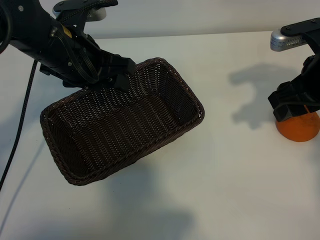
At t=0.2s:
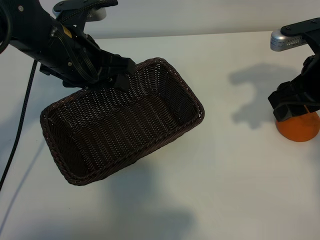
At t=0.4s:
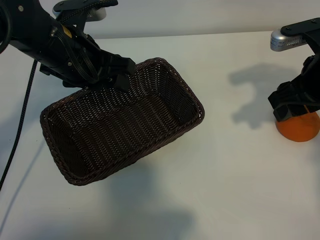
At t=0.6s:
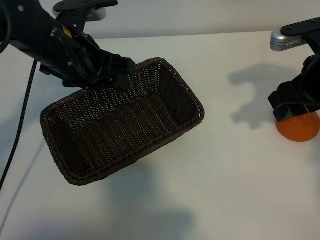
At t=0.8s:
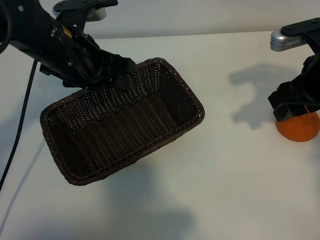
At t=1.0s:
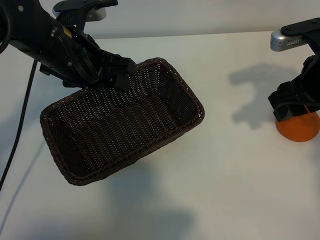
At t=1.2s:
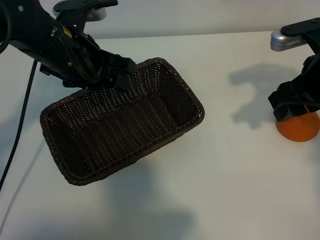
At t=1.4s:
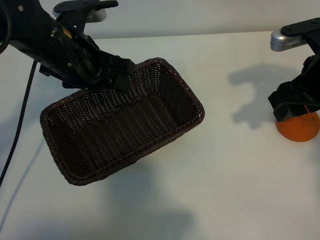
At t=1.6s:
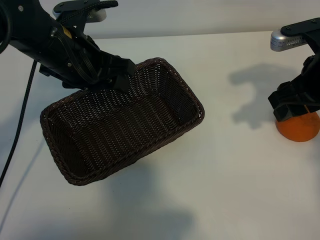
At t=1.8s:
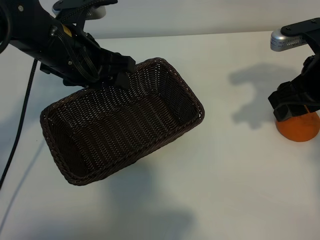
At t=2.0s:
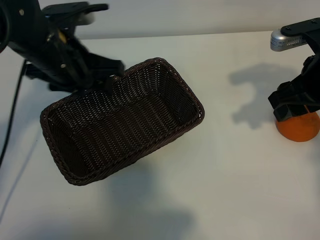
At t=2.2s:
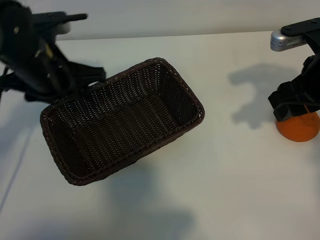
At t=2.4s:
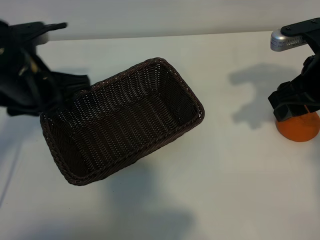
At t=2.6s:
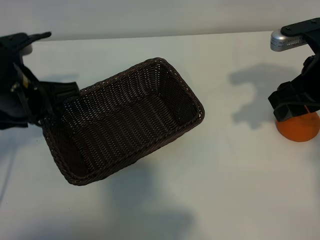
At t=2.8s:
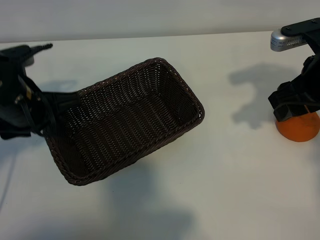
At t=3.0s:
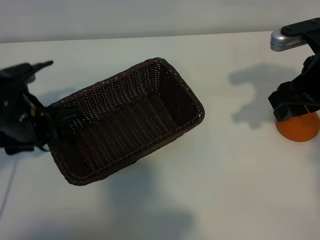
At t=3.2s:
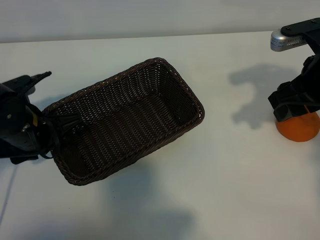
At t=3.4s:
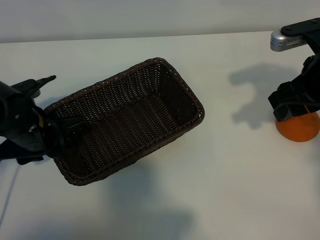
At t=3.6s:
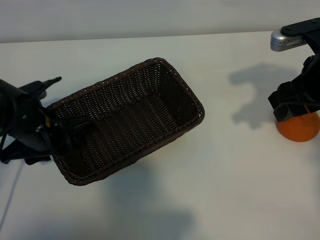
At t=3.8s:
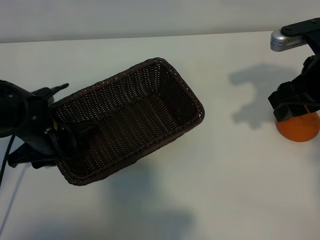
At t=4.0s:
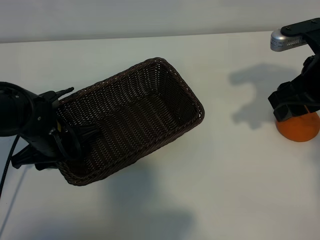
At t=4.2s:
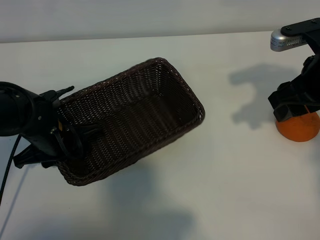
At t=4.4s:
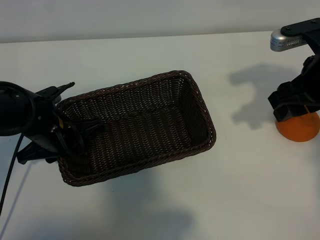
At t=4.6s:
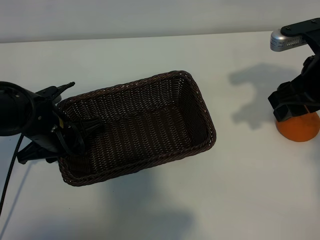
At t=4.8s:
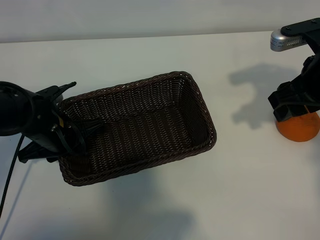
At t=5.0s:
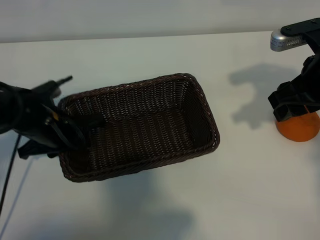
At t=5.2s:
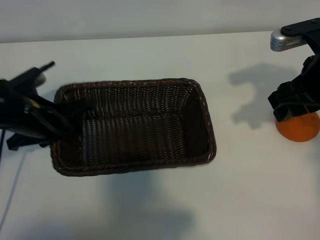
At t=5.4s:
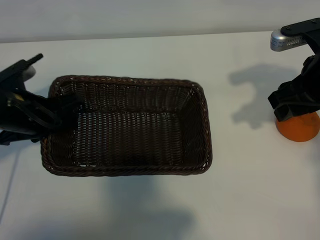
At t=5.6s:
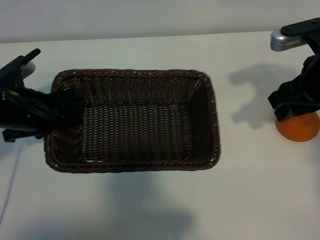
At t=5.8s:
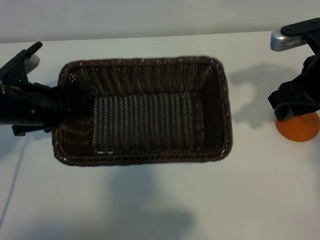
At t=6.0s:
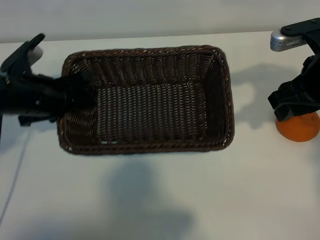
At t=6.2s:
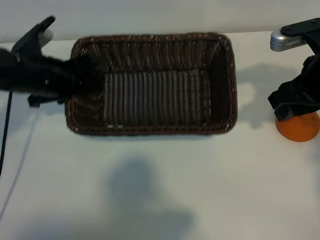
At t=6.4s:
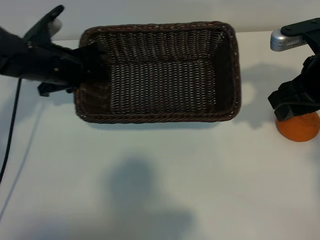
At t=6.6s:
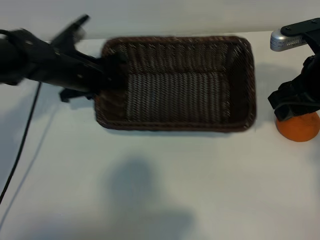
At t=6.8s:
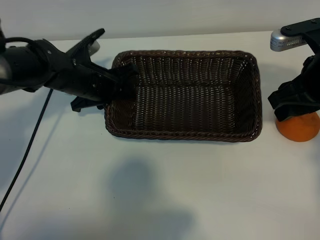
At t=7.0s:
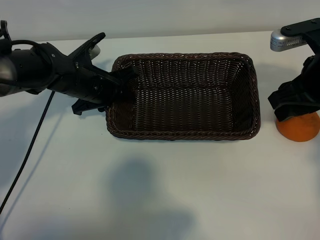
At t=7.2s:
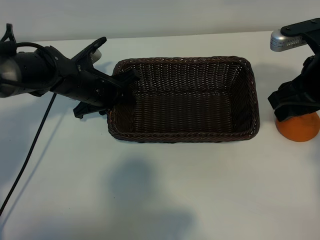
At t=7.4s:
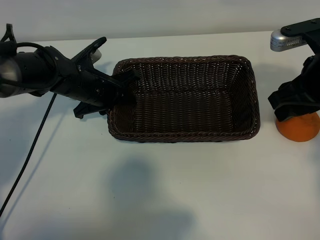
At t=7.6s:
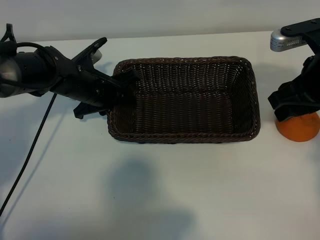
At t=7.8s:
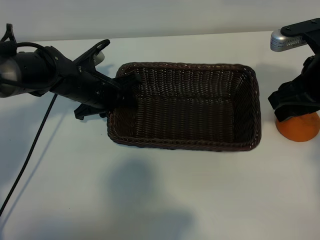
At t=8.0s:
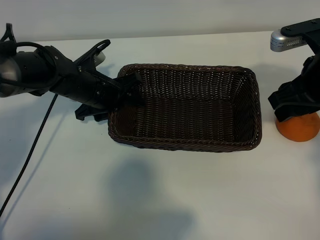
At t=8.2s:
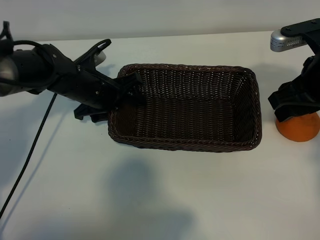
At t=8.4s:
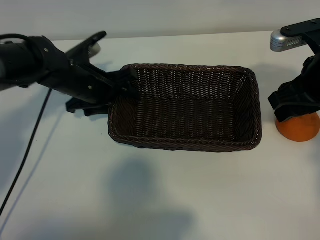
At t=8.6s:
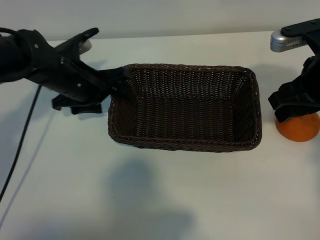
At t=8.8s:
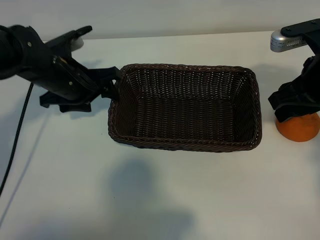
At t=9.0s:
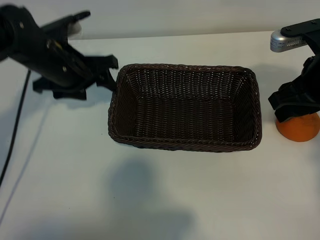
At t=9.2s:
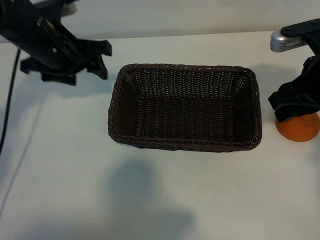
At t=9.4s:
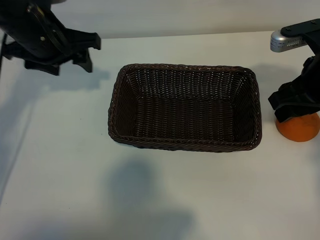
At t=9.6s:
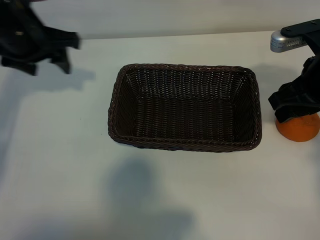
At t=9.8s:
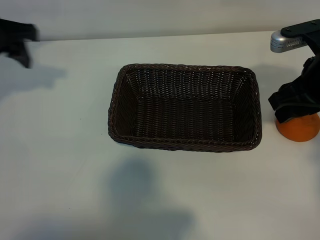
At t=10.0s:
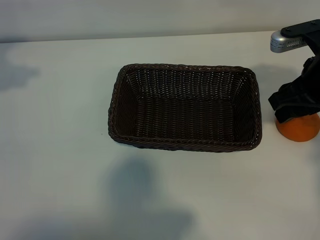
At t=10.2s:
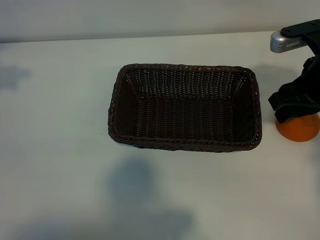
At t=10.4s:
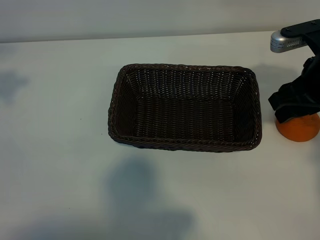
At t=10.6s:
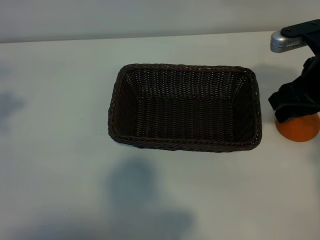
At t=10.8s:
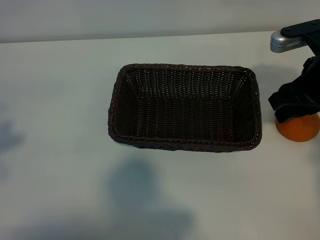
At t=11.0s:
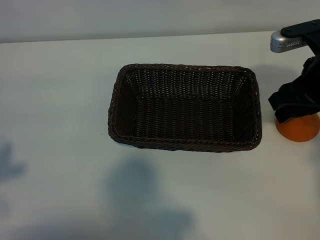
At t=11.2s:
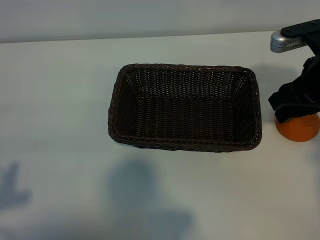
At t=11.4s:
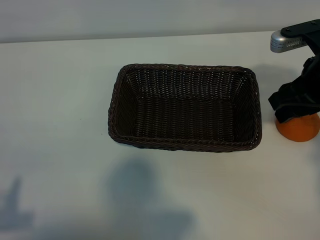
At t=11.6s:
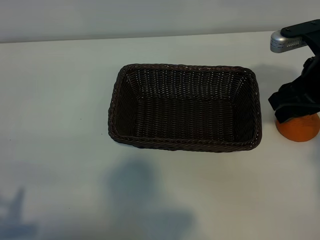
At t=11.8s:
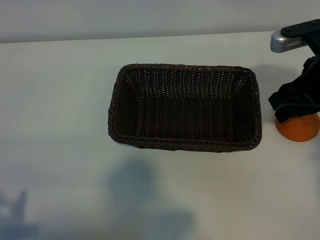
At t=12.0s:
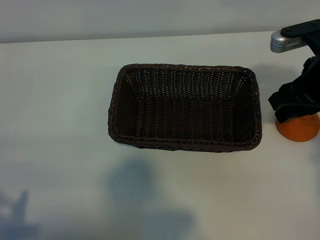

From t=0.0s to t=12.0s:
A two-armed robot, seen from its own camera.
Task of the whole recording: pick up the orange and put it into the basket.
Step, from t=1.4s to t=4.2s: Grasp the basket with left gripper.
Step, from t=4.6s to t=7.8s: Place the basket in the center of view with left gripper.

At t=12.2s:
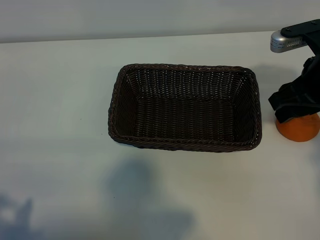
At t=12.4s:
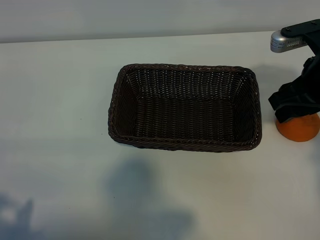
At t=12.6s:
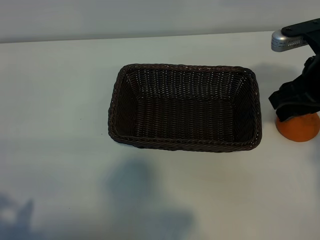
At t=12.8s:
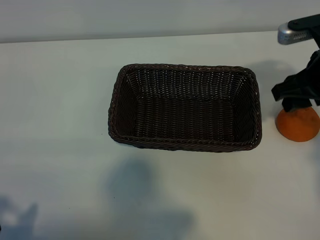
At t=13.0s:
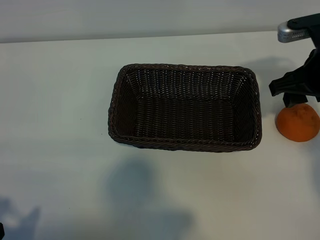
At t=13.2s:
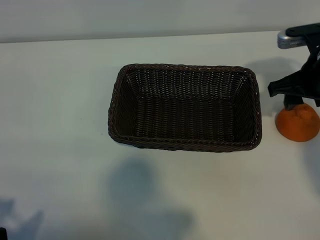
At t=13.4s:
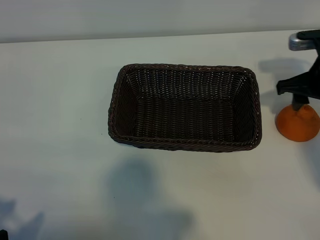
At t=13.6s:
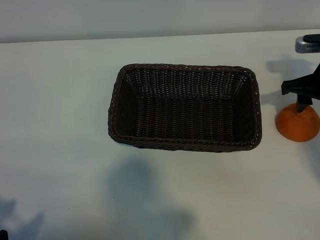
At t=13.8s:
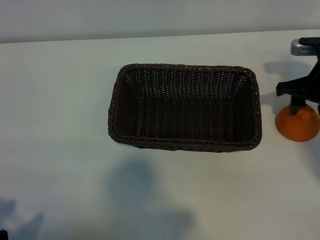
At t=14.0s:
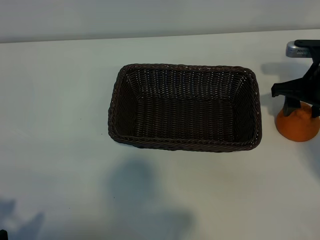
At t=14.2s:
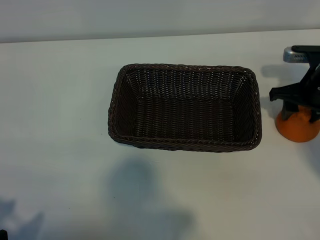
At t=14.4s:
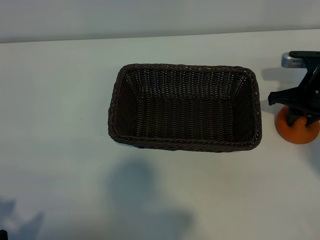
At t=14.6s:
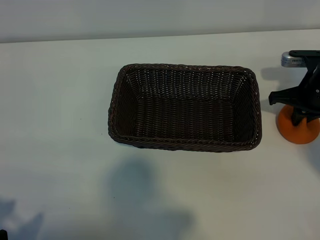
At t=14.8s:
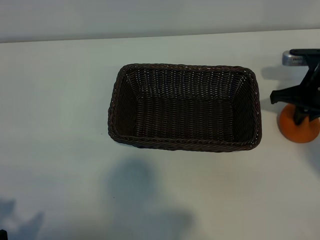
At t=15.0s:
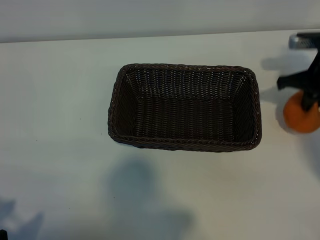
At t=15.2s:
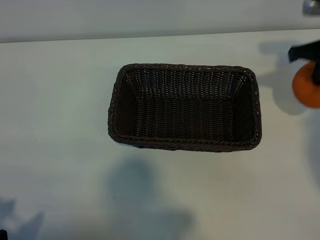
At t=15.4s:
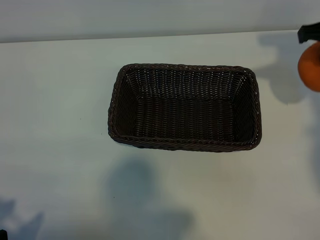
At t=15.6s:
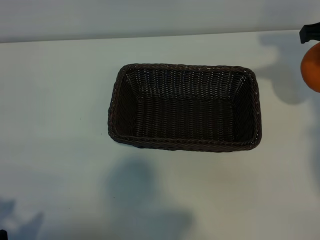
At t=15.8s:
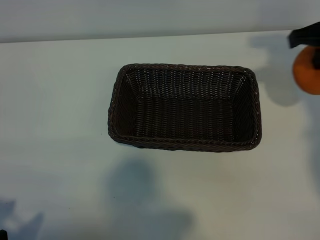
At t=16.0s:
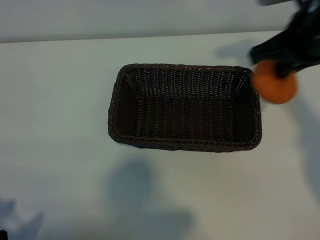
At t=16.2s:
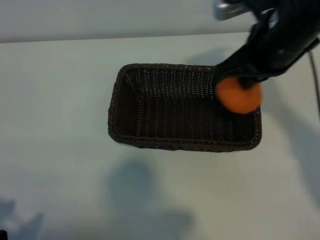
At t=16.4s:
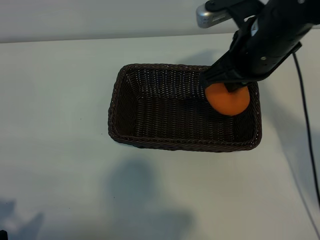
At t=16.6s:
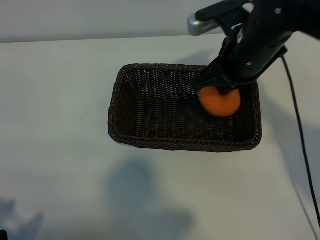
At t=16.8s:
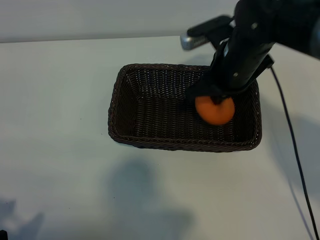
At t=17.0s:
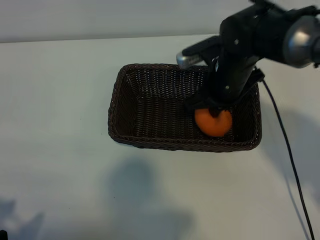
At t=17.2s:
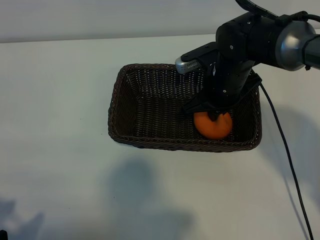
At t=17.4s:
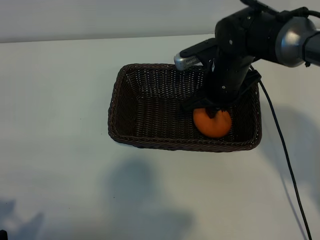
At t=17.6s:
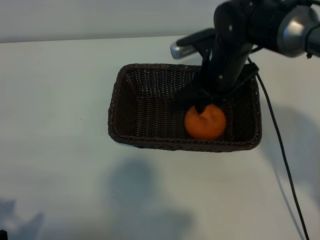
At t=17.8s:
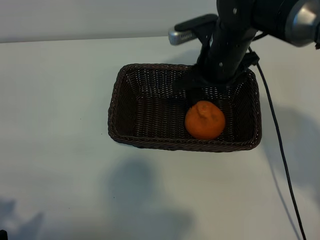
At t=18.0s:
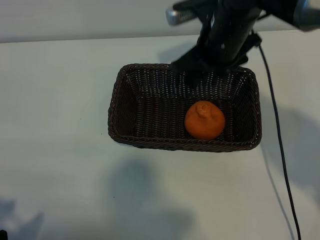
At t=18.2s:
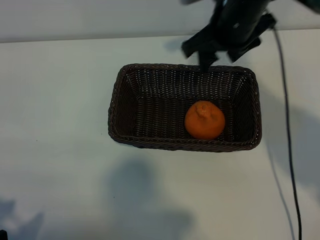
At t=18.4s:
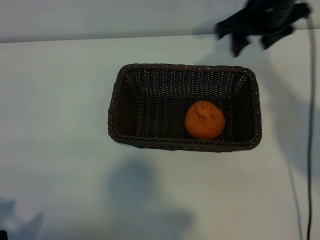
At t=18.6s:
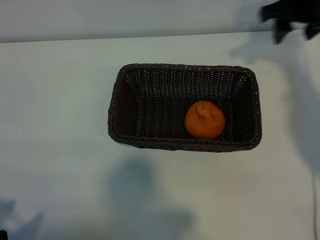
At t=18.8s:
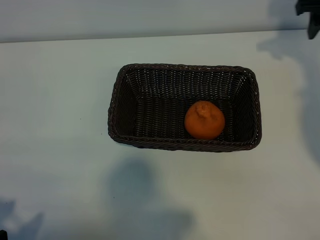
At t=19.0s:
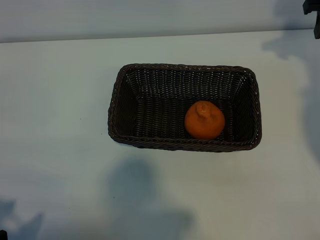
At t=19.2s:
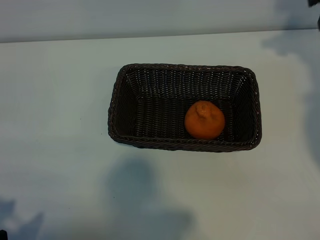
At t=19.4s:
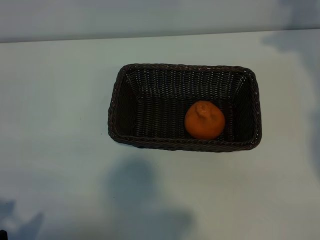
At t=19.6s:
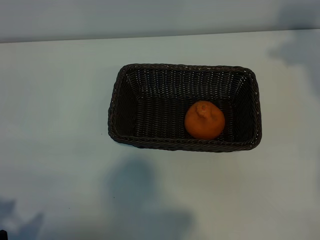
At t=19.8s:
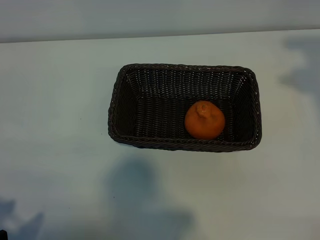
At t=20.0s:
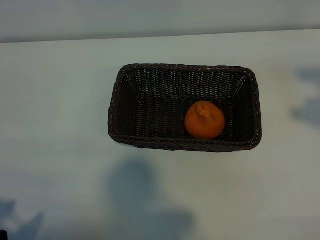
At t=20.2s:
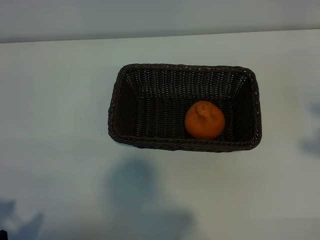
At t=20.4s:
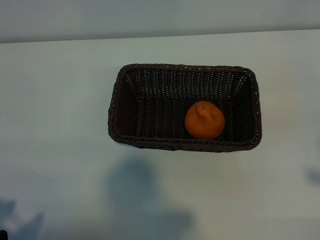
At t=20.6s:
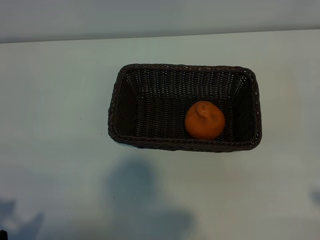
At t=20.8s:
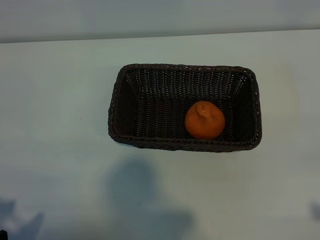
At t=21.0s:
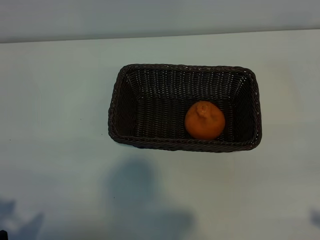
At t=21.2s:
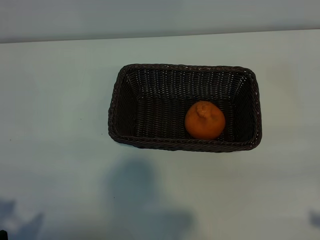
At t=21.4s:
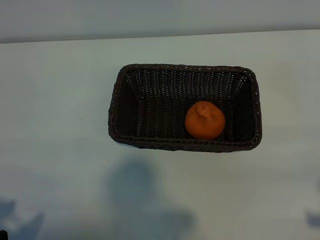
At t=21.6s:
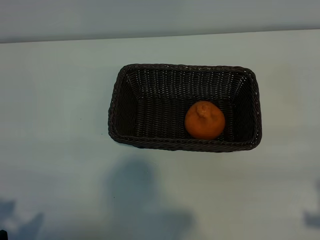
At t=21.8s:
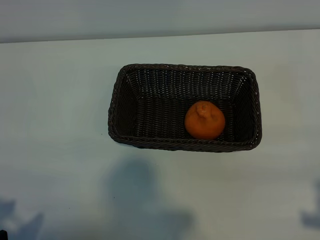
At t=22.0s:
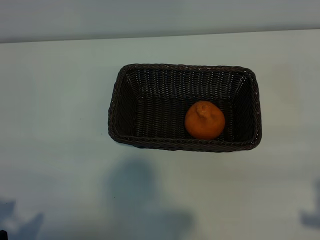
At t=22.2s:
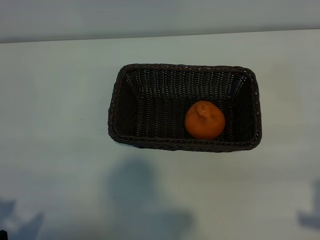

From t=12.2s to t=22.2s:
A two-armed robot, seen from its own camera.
Task of the whole recording: pick up the orange and put it into the basket.
Step, from t=12.2s to t=14.6s: Grasp the orange with right gripper.
Step, from t=14.8s to t=17.6s: Place the orange in the basket with right gripper.
